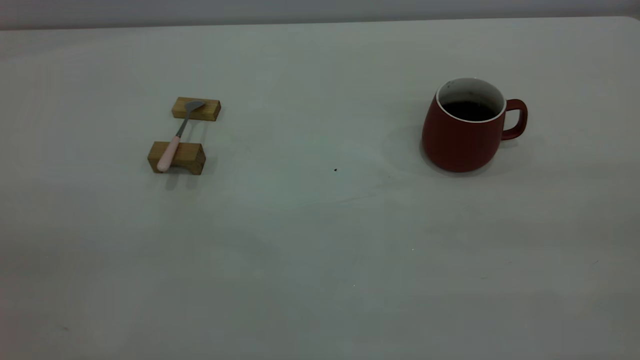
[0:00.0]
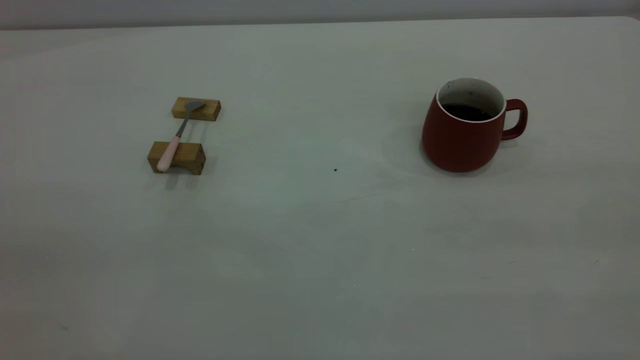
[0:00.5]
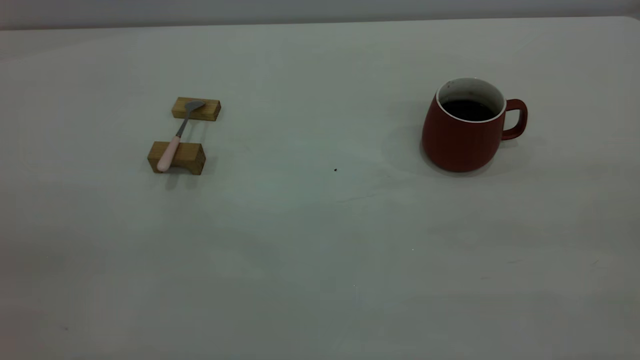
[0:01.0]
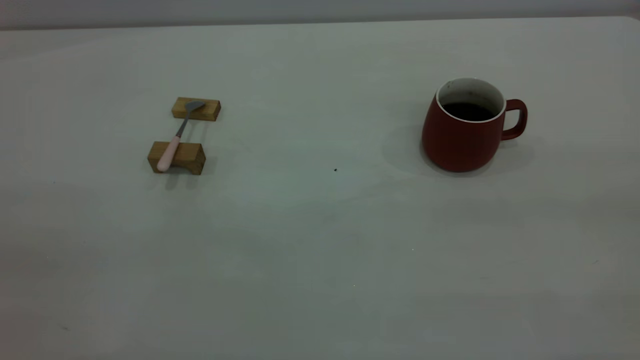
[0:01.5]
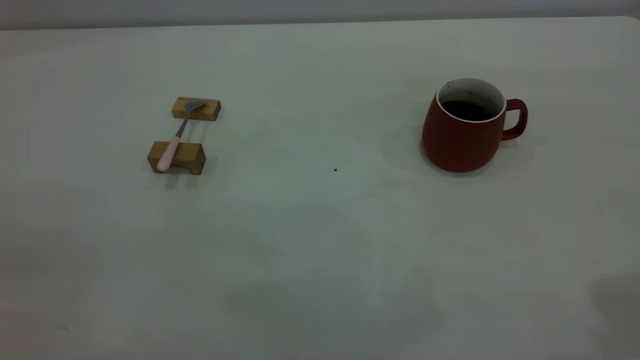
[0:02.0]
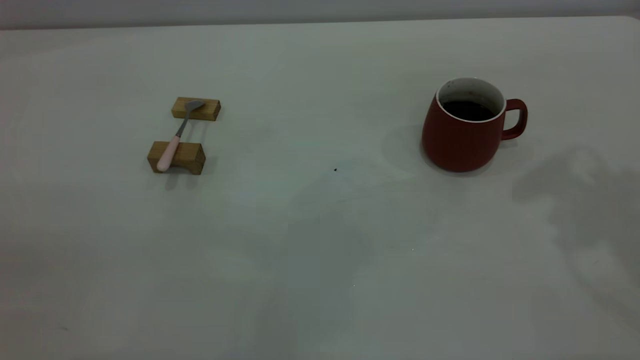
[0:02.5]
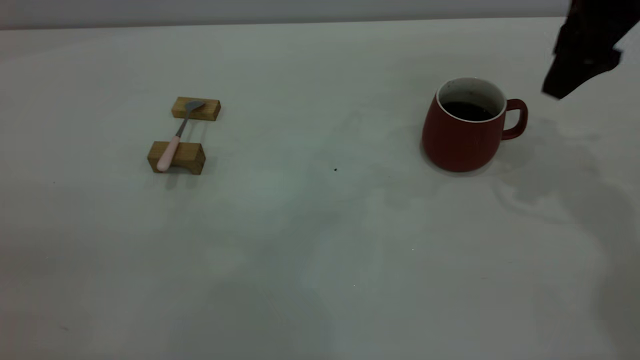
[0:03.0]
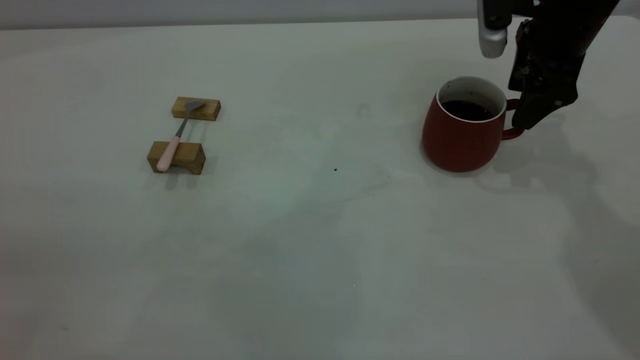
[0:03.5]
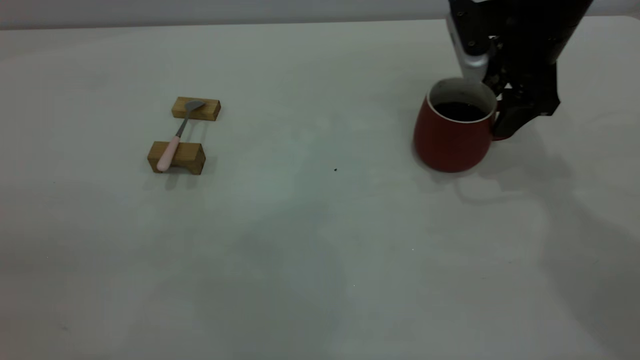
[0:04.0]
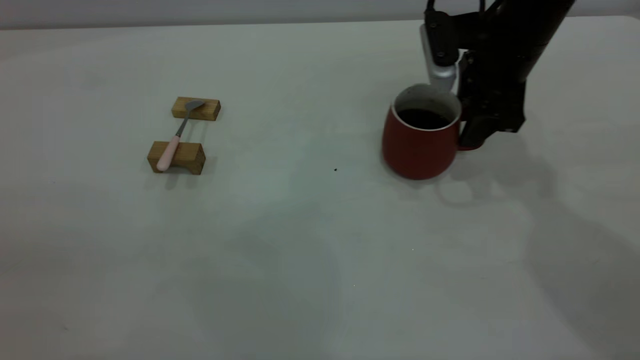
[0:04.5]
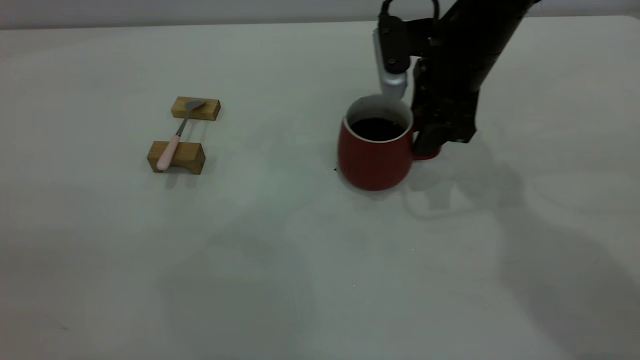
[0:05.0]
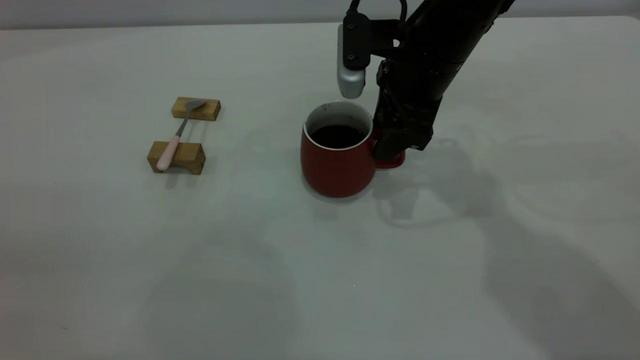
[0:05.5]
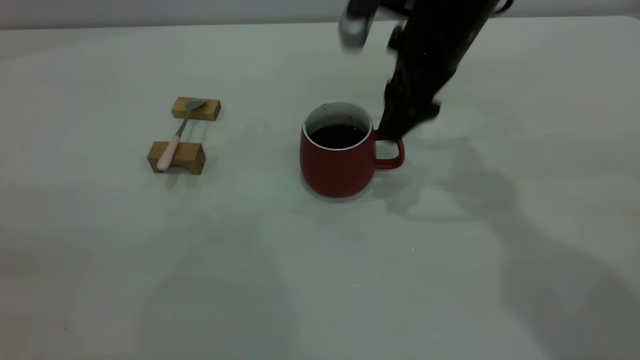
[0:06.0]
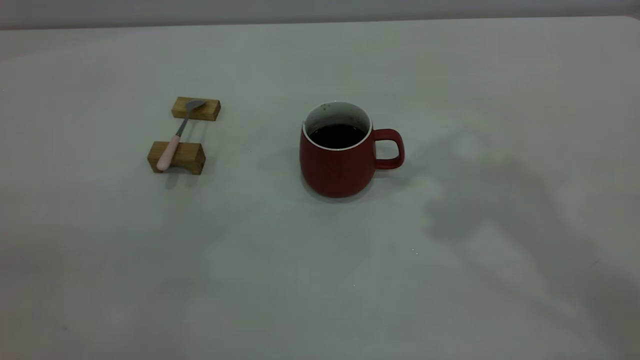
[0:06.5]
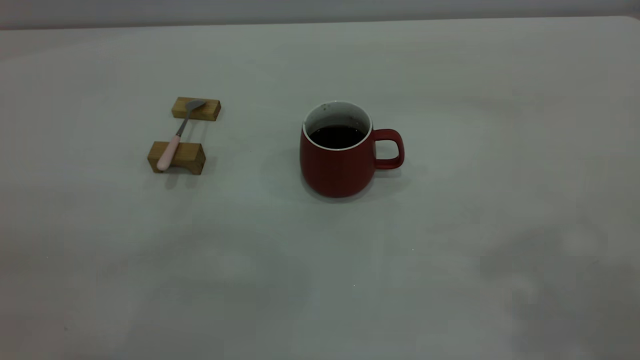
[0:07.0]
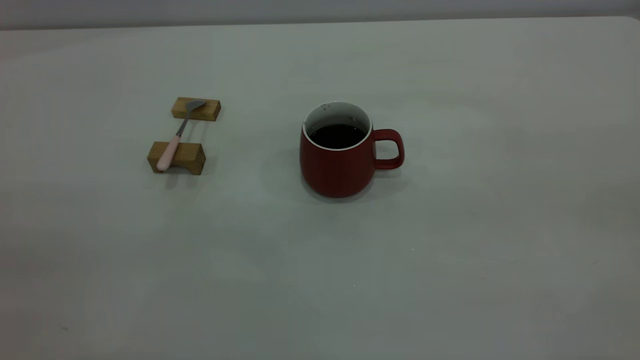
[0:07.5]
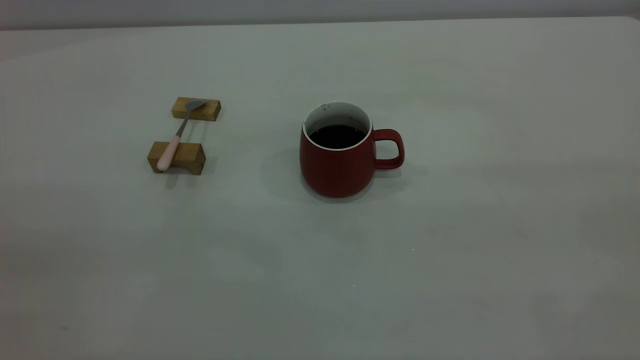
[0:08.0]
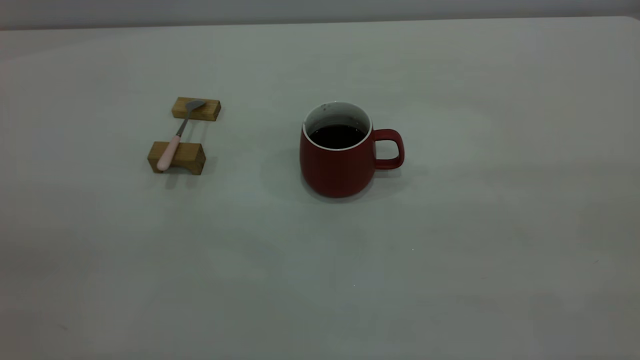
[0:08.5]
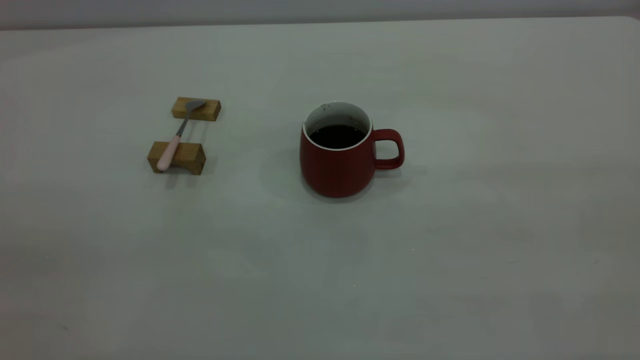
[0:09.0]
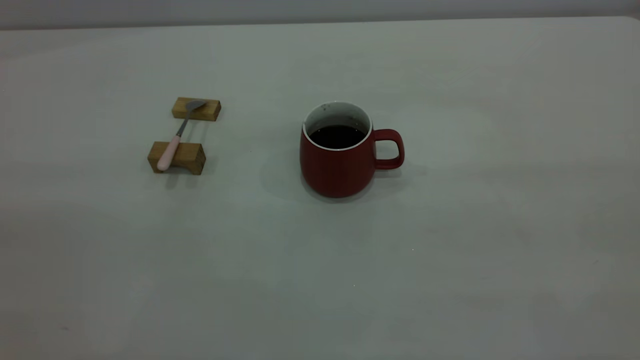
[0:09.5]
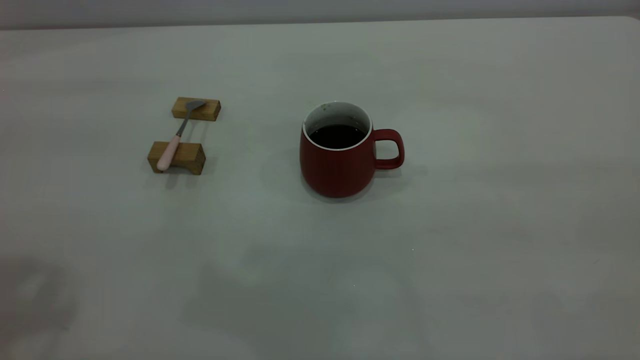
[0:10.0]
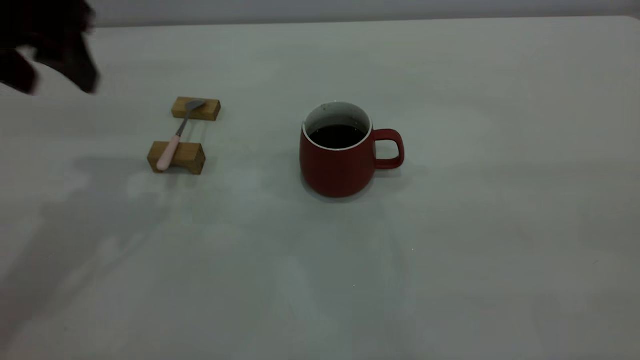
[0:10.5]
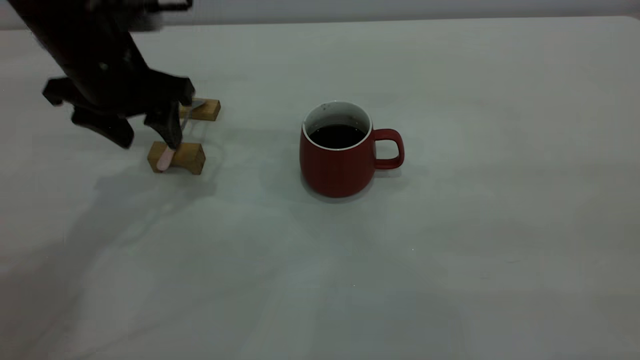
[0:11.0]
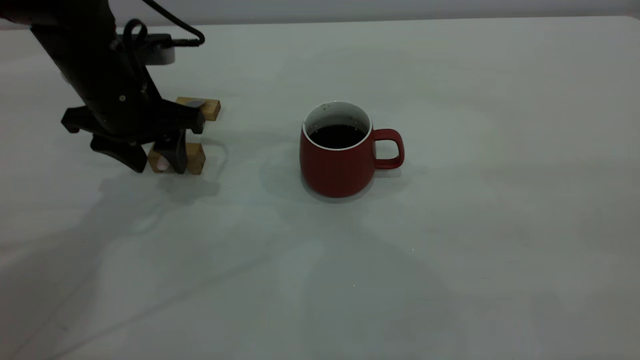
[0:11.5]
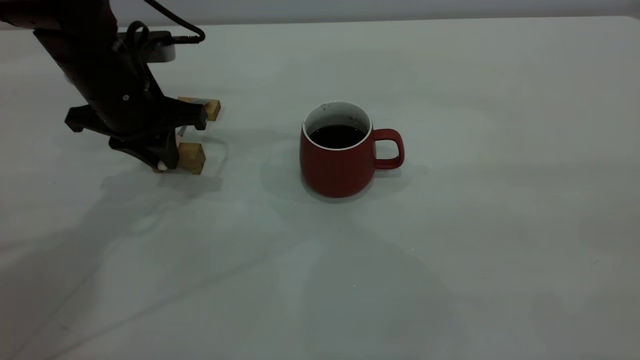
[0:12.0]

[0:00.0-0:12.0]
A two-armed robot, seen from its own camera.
Step, 0:00.0 to 0:06.0: Move the cup with coffee to the center of view.
0:02.0 to 0:04.0: The right gripper is displaced forward and downward by roughly 35 cm.
0:04.0 to 0:06.0: The right gripper travels to the left by some 10 cm, and closes, then opens again.
0:06.0 to 0:08.0: The right gripper is displaced backward, upward and to the right by some 50 cm.
0:10.0 to 0:12.0: The left gripper heads downward and forward, covering roughly 30 cm, and closes.

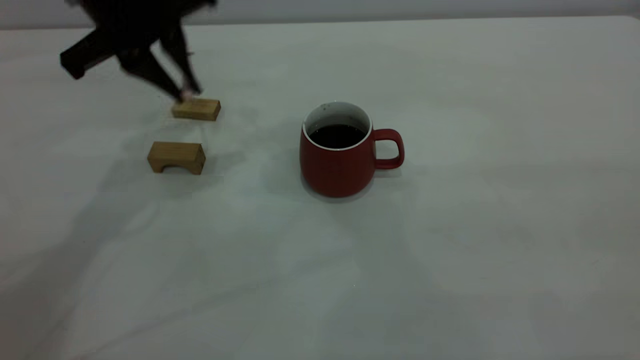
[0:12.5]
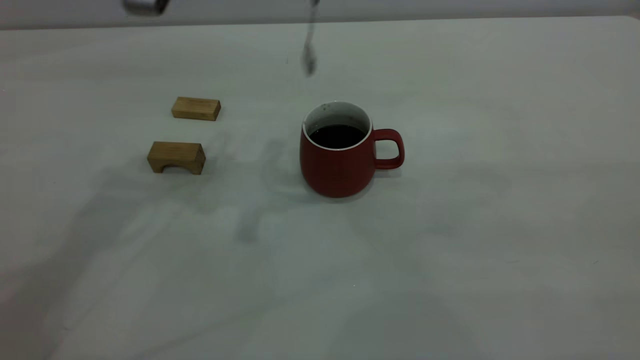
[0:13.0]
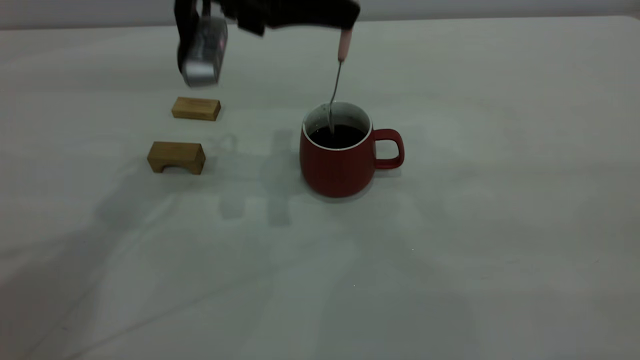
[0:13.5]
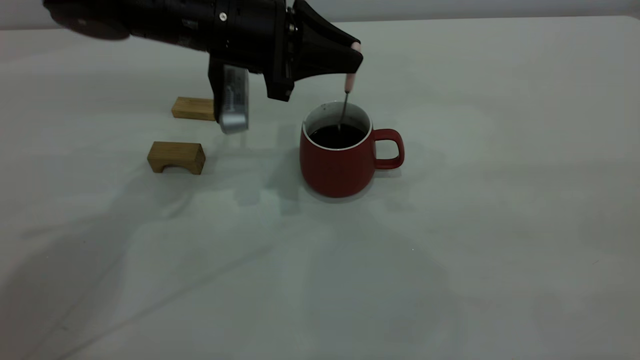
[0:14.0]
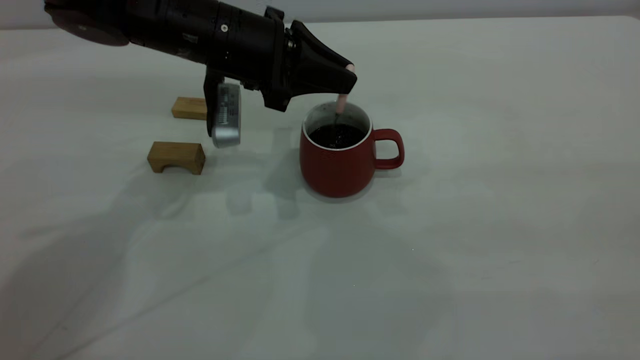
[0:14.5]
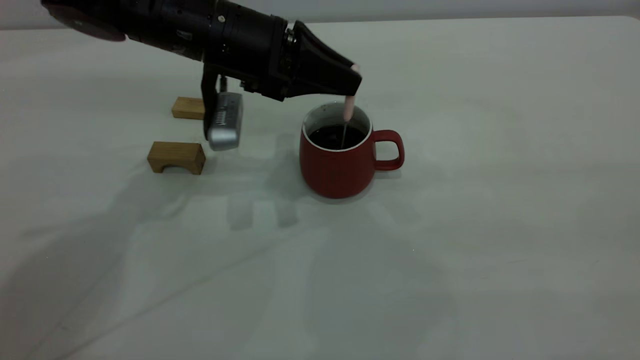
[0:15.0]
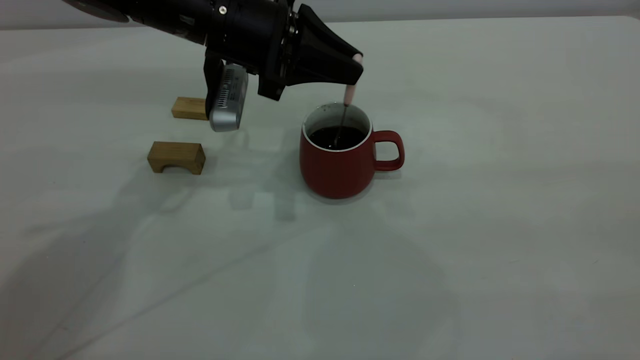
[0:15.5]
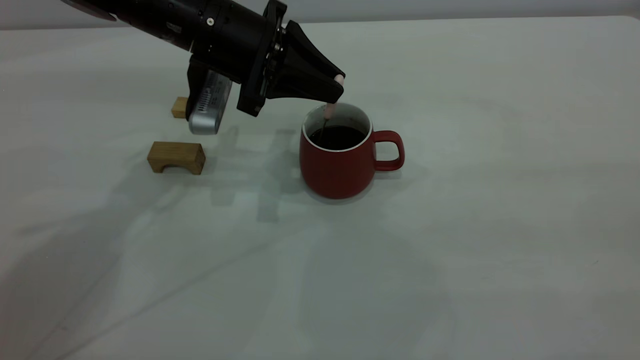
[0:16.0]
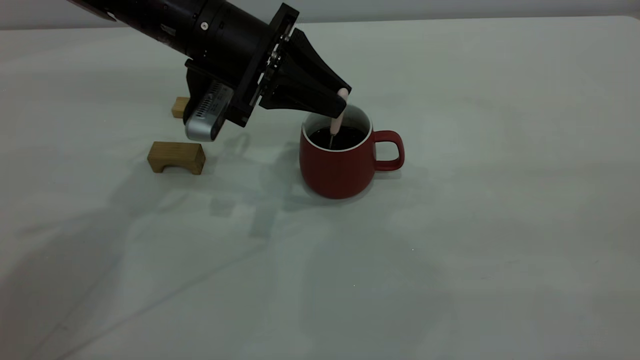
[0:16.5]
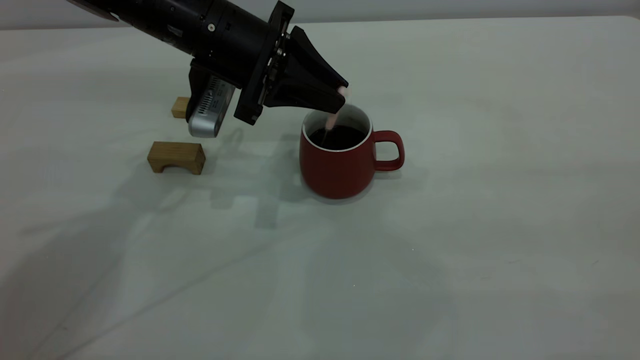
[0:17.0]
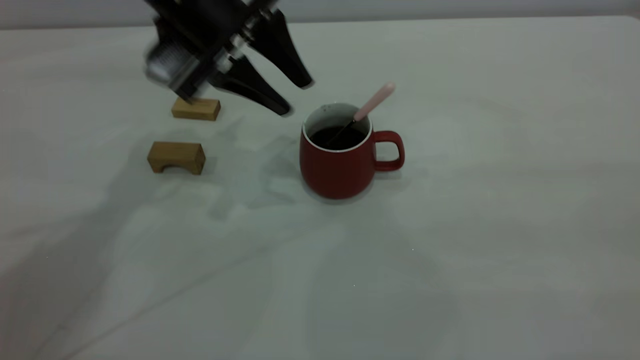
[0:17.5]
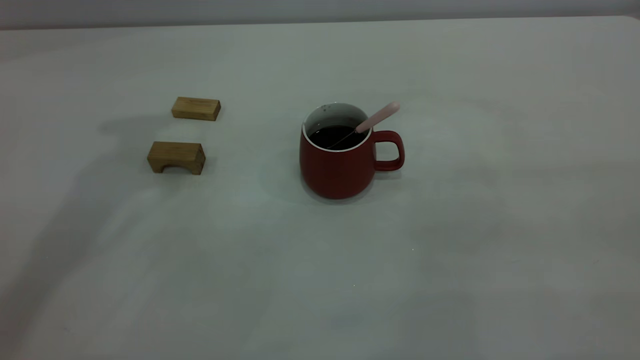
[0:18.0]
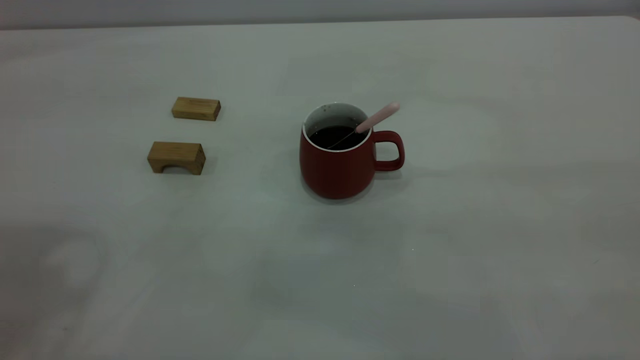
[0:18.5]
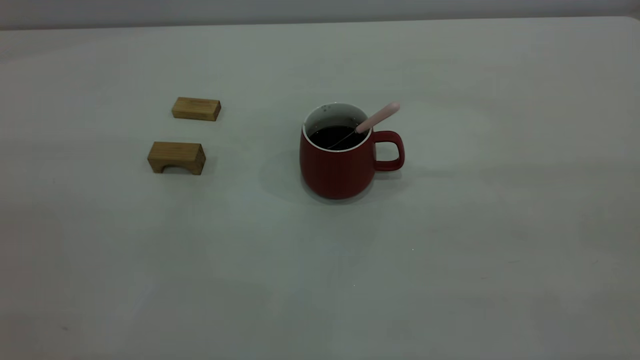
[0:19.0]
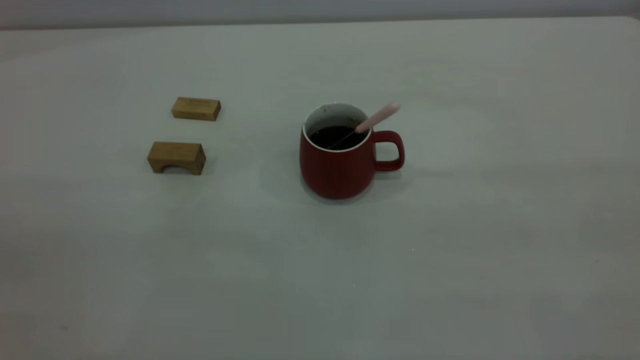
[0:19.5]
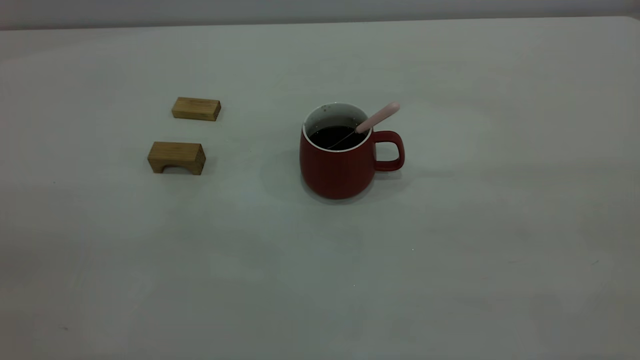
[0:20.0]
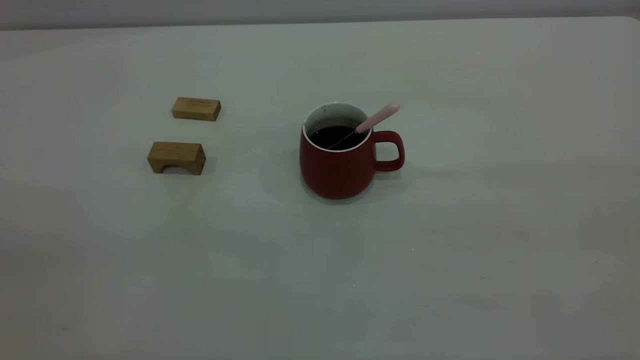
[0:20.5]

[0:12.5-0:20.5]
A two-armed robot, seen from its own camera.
Step, 0:13.0 to 0:17.5: Stir the coffee in the cup.
0:12.5 to 0:14.5: The left gripper travels downward and to the right by some 10 cm.
0:14.5 to 0:16.5: The grippers stay close to where they were, moving slightly.
0:16.5 to 0:18.5: The left gripper heads upward, backward and to the left, covering approximately 40 cm, and opens up.
